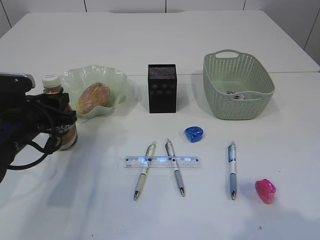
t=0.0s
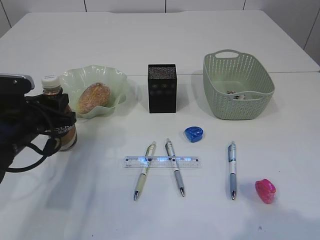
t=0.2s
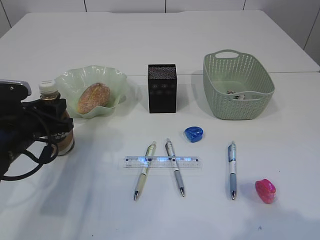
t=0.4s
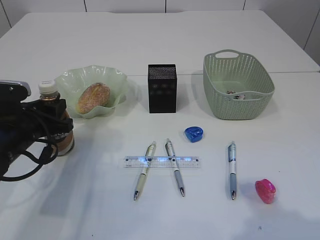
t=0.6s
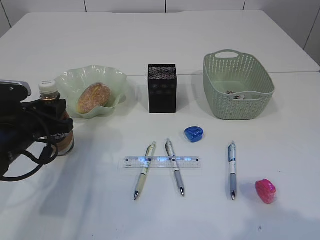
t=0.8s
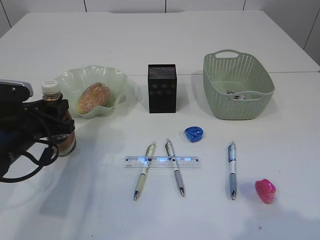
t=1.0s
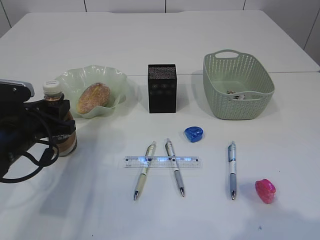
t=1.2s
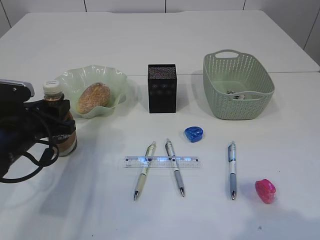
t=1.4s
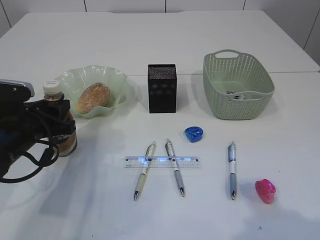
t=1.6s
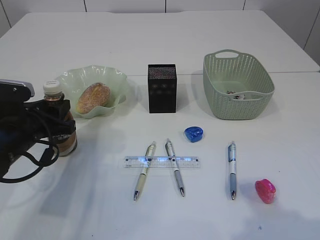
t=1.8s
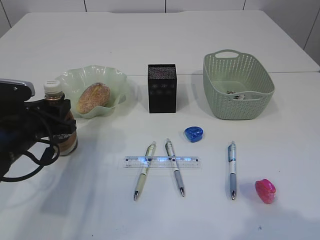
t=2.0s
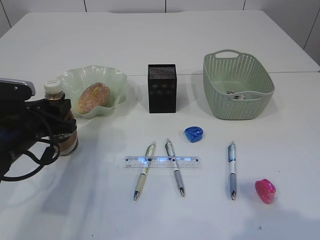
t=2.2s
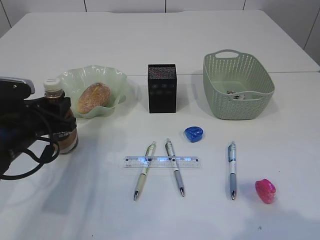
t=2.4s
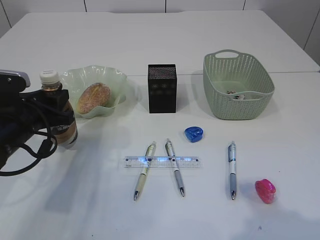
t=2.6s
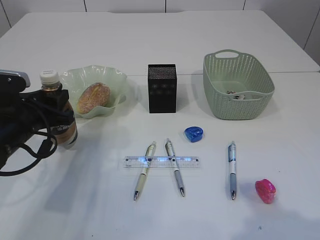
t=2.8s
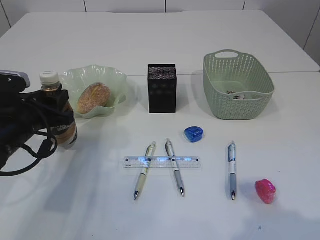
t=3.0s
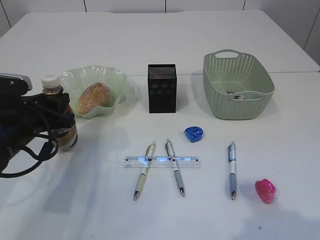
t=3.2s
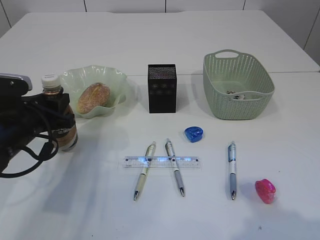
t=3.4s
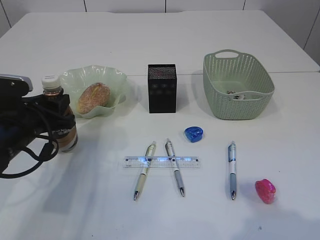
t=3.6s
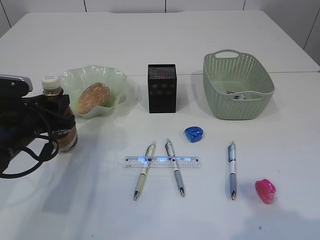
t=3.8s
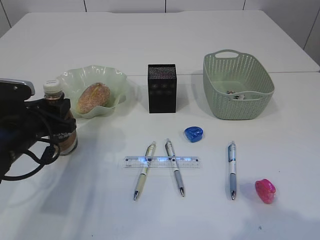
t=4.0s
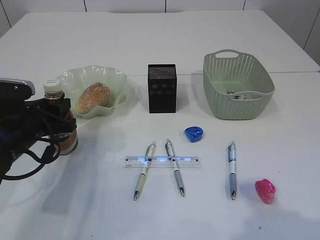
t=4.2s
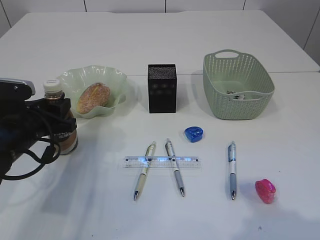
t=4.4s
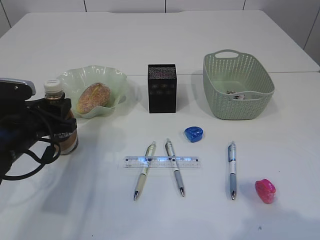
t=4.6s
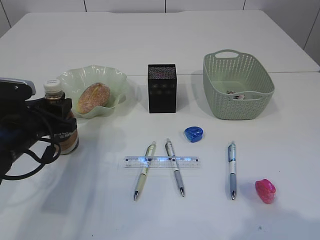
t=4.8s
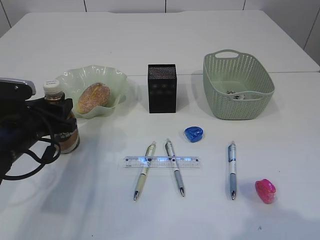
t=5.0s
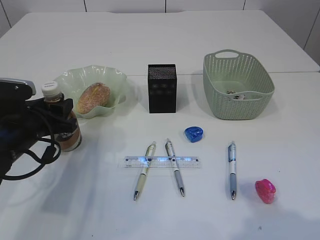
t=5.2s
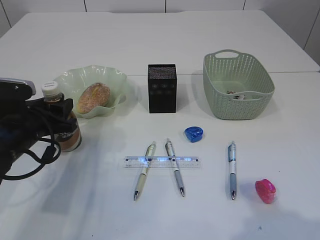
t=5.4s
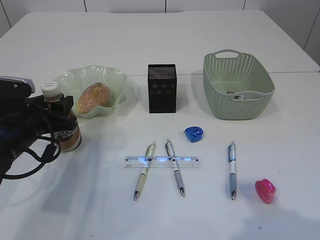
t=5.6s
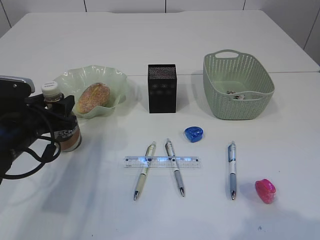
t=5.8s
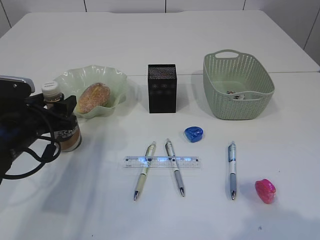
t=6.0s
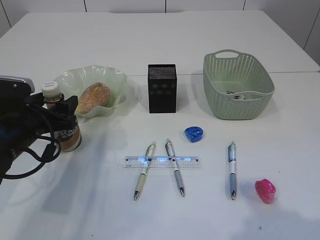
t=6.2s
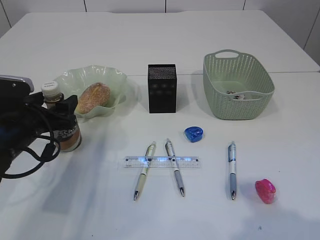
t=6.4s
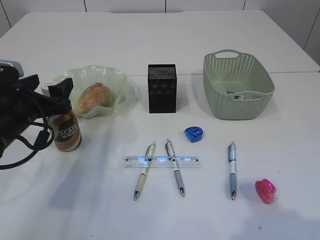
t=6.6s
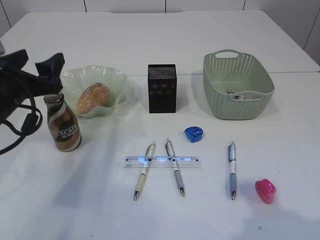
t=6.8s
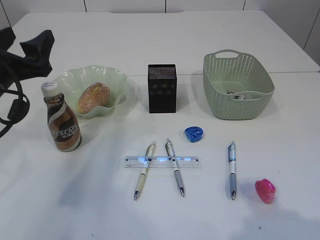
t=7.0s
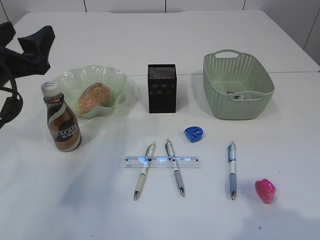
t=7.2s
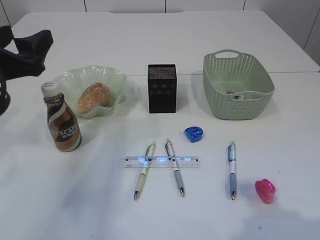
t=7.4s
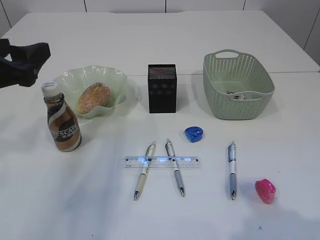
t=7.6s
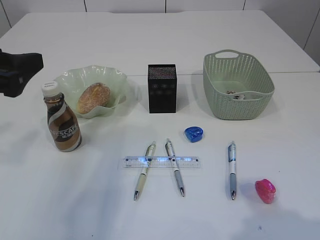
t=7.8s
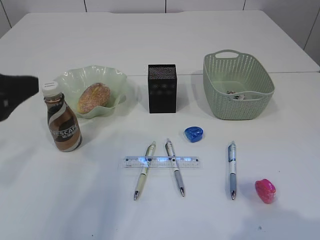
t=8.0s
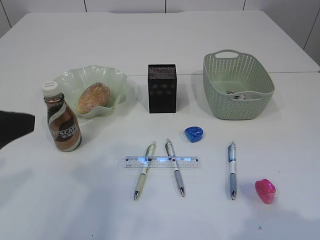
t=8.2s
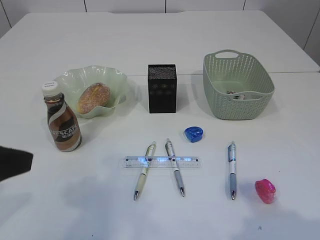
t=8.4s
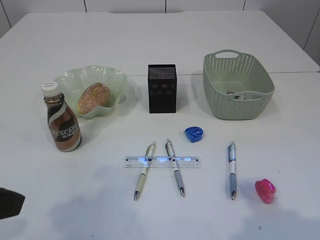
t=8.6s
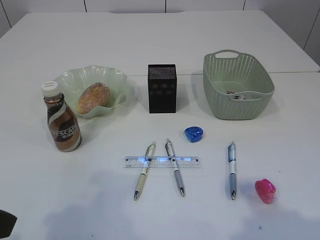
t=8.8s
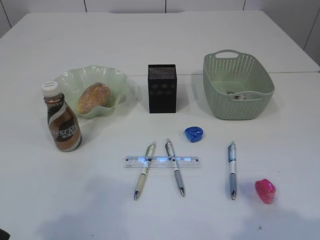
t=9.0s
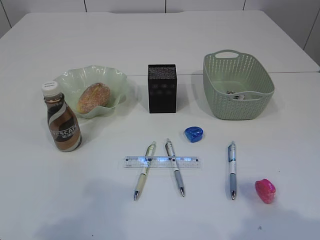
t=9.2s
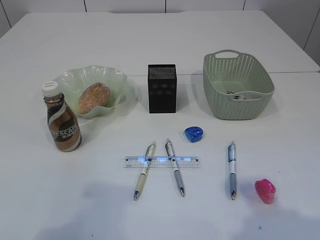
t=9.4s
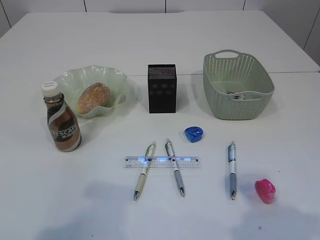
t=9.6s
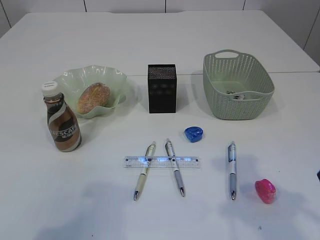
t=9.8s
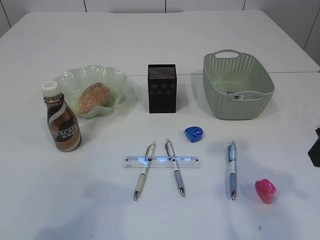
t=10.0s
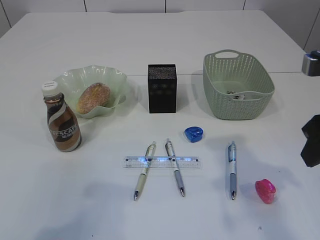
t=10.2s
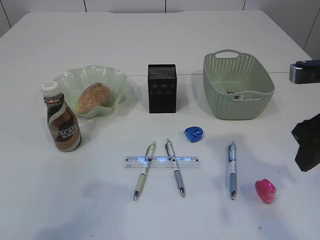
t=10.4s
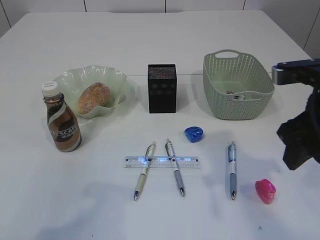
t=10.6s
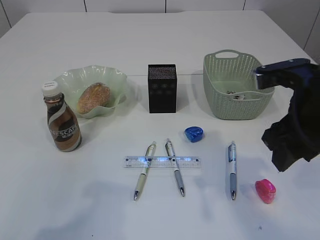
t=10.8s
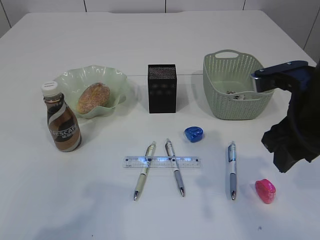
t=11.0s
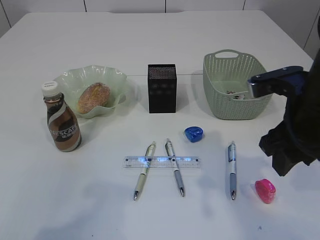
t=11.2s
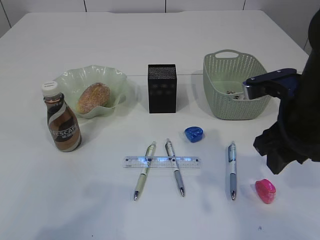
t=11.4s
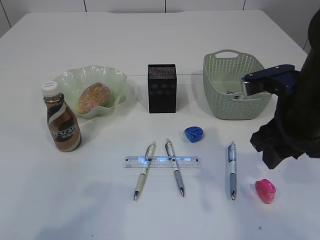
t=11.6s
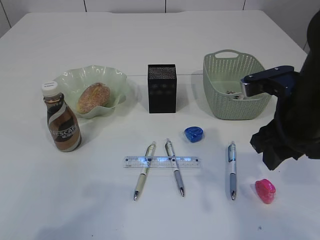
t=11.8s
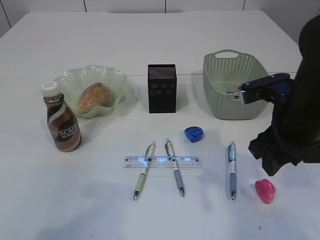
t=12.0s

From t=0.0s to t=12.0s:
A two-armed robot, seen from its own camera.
Step, from t=0.0s to t=6.8s: Place the bottle.
From t=0.0s to t=4.4s: The grippers make only small movements.
From t=4.4s to t=6.0s: The left gripper opens its fingers.
From t=6.0s to t=7.6s: The left gripper shifts some 15 cm upward.
From t=7.6s to t=9.0s: The left gripper is displaced backward by some 15 cm.
From t=9.0s to t=10.4s: The right gripper moves forward, roughly 15 cm.
From t=10.4s to t=12.0s: The right gripper changes place by roughly 5 cm.

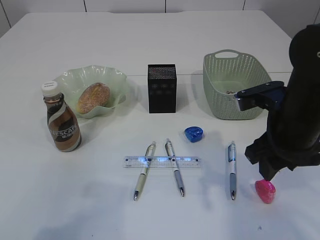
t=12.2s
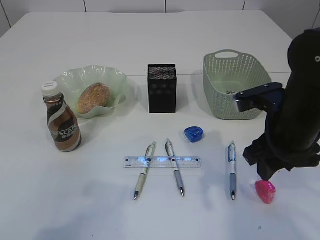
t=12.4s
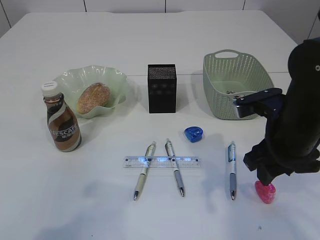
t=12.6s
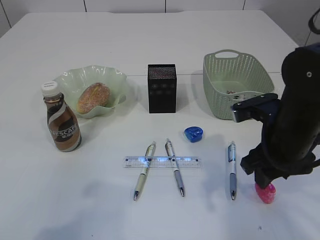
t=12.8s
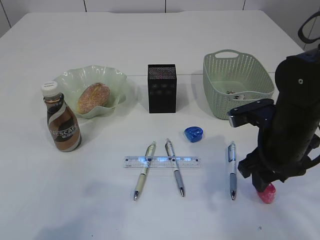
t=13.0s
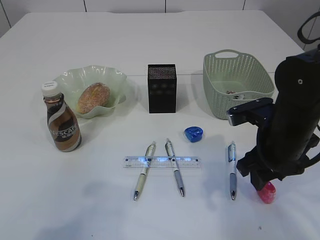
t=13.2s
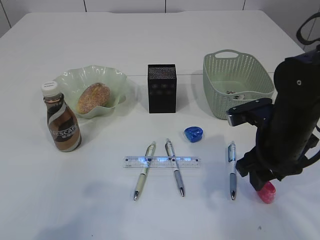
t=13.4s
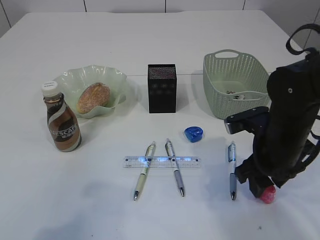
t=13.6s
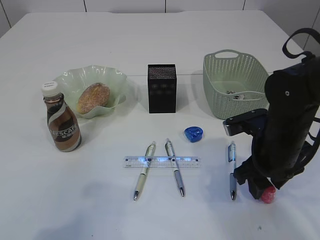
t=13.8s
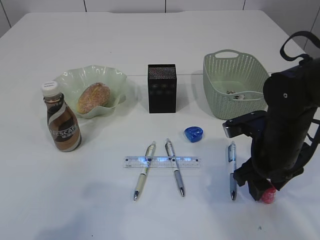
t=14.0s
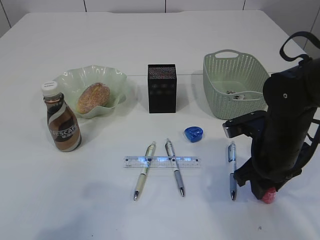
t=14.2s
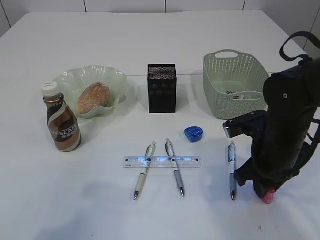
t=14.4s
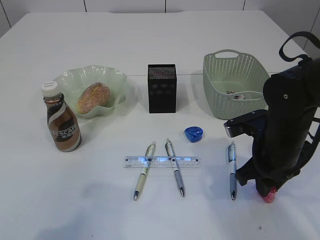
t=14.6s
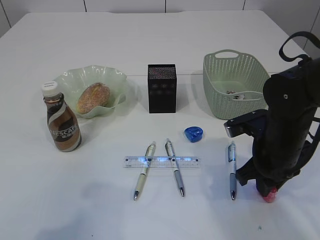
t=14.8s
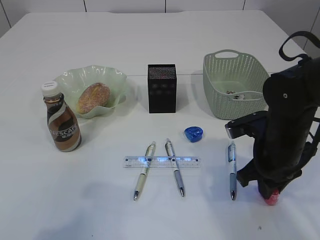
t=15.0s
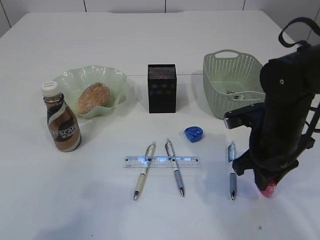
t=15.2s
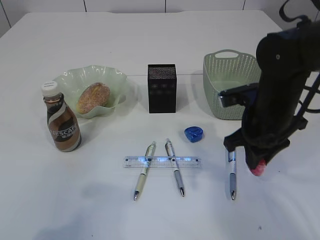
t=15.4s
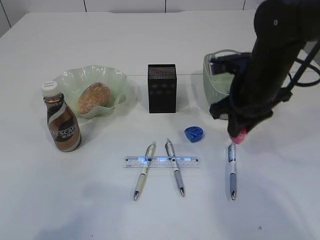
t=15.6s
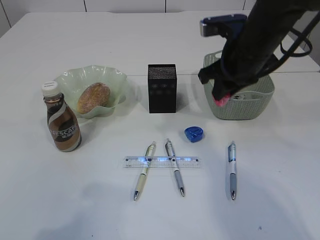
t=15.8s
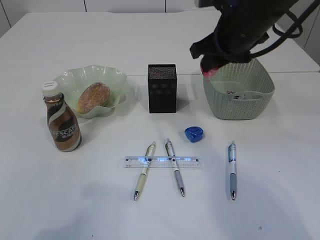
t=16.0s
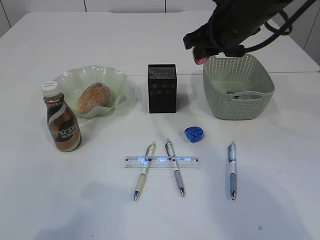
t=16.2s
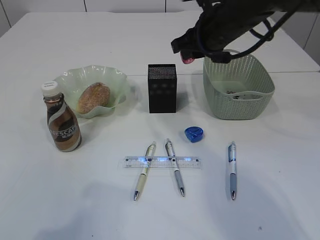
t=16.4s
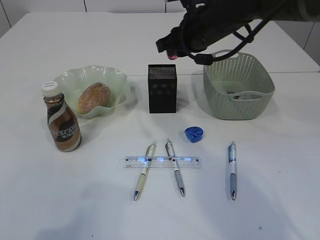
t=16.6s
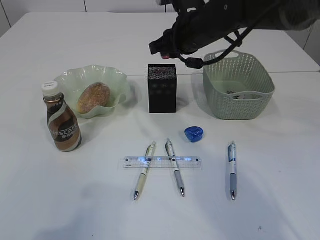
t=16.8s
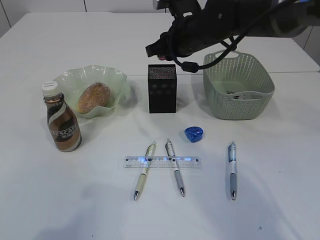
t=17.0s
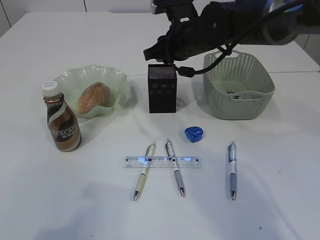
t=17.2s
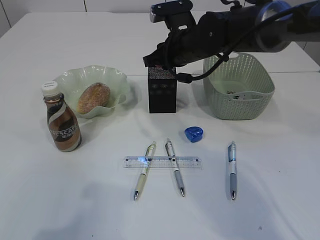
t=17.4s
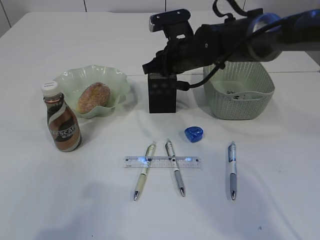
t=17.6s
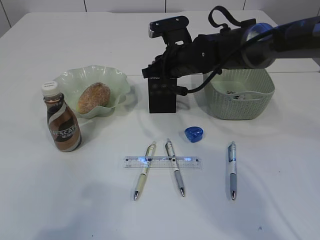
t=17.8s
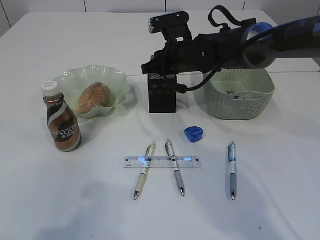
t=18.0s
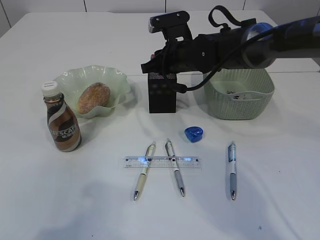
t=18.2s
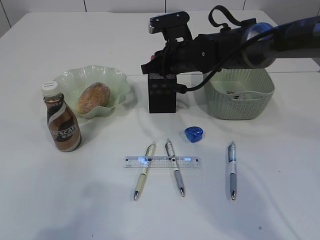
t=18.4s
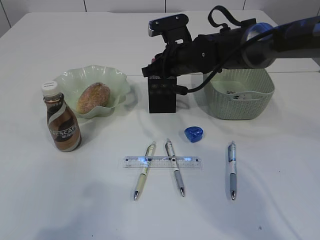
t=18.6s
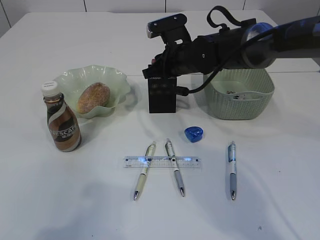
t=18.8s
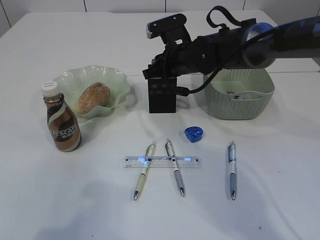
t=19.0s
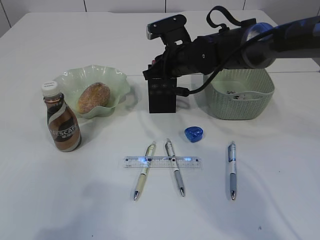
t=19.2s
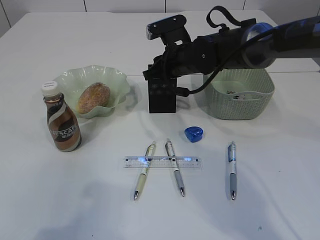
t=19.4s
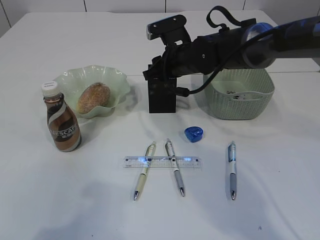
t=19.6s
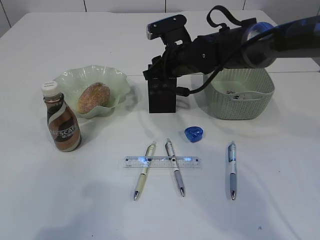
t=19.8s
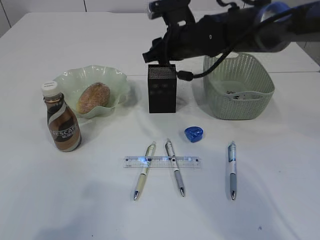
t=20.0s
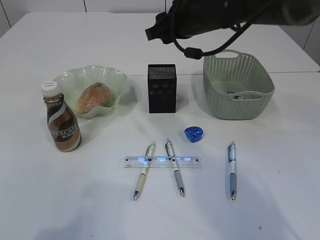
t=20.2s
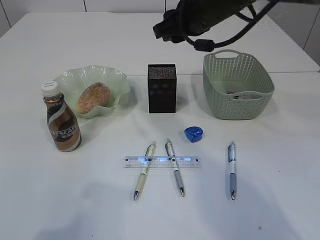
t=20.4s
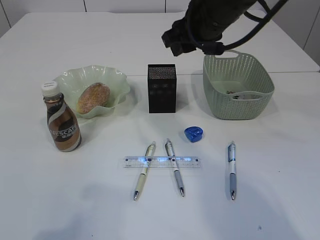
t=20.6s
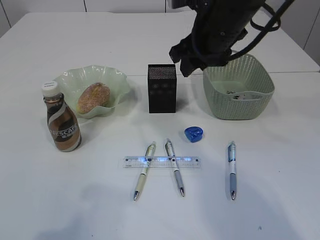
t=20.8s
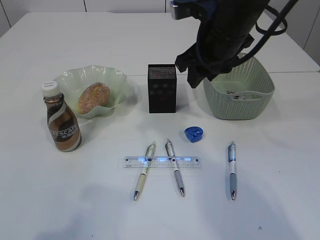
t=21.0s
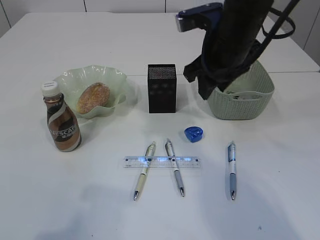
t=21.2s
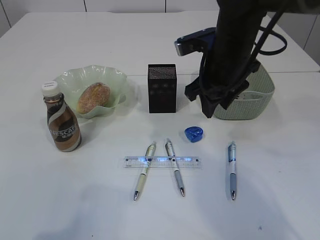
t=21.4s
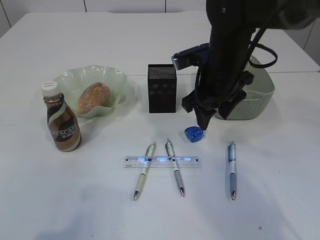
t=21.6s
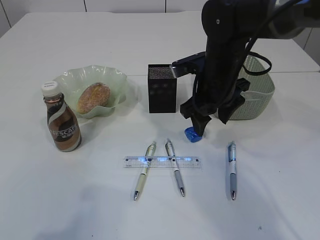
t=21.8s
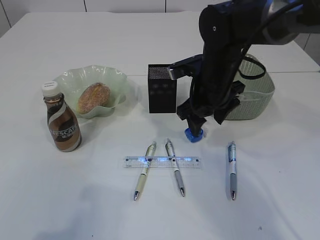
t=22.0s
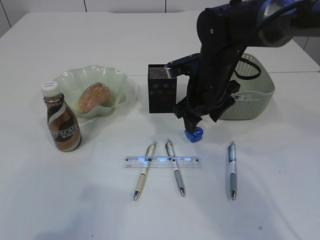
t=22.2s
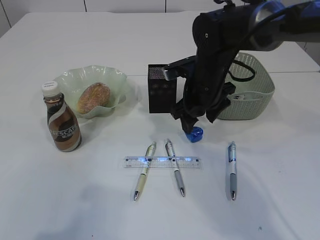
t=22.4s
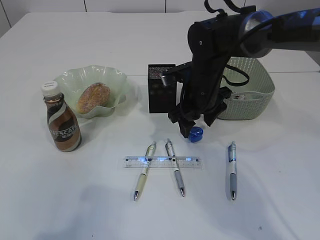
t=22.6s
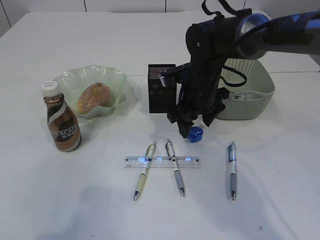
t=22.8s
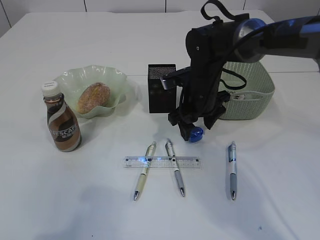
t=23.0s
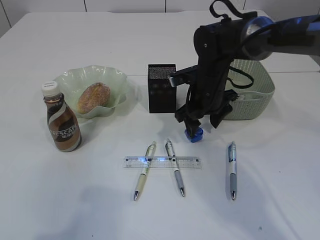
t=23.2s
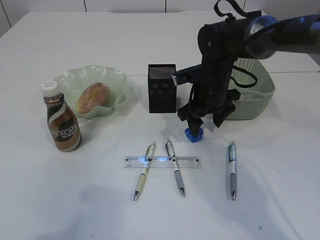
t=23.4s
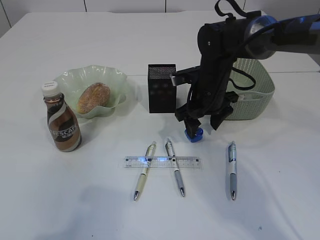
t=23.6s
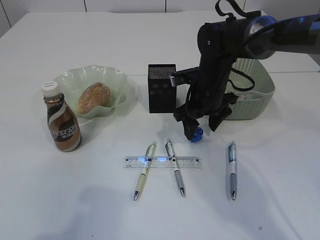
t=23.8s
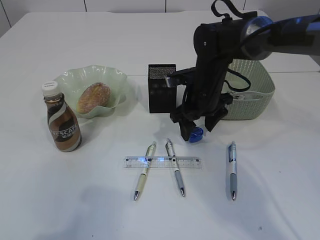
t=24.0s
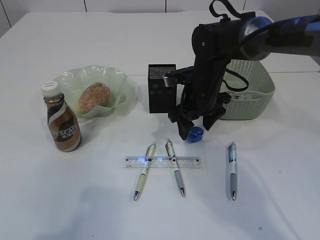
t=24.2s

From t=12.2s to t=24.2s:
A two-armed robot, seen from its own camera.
Step, from t=12.2s to t=15.4s: Pick up the red pencil sharpener.
Step, from t=15.6s to t=20.6s: place the red glue into the pen holder.
From t=12.2s to t=13.8s: The right gripper shifts roughly 5 cm downward.
From t=13.8s to t=15.2s: The right gripper closes.
From t=15.2s to t=16.6s: The right gripper goes roughly 20 cm forward, upward and to the left.
From t=16.6s to t=18.2s: The right gripper goes about 10 cm downward.
From t=18.2s to t=19.8s: The grippers stay close to where they were, moving slightly.
From t=19.8s to t=21.2s: The right gripper shifts about 15 cm backward and upward.
From t=21.2s to t=22.6s: The right gripper is displaced downward by some 10 cm, and opens.
From t=22.6s to t=24.2s: There are only small adjustments of the grippers.
